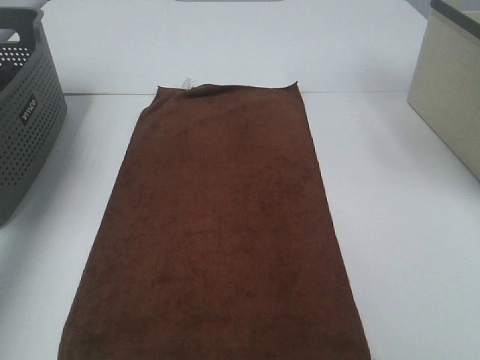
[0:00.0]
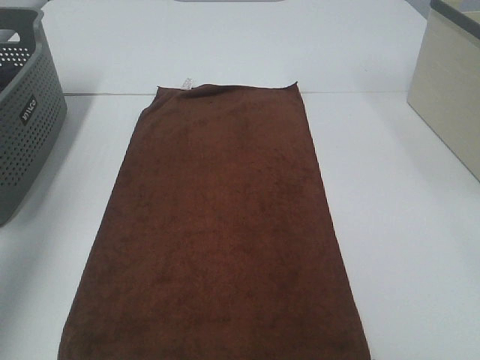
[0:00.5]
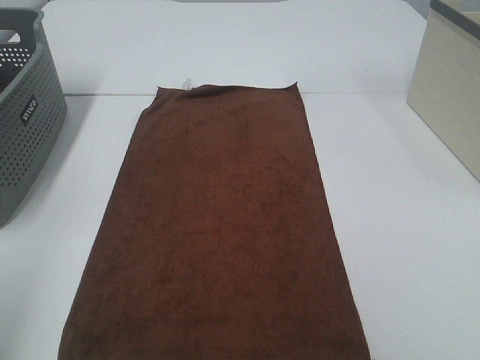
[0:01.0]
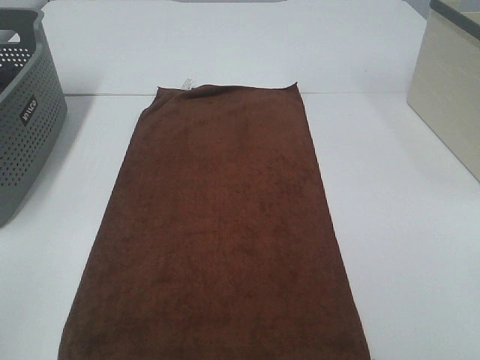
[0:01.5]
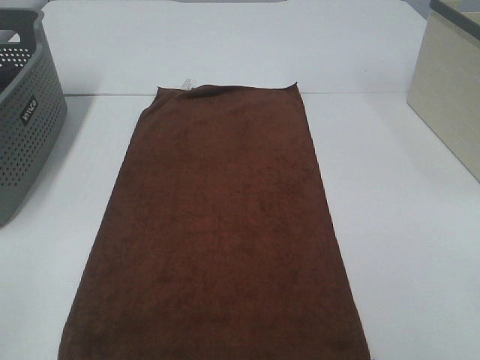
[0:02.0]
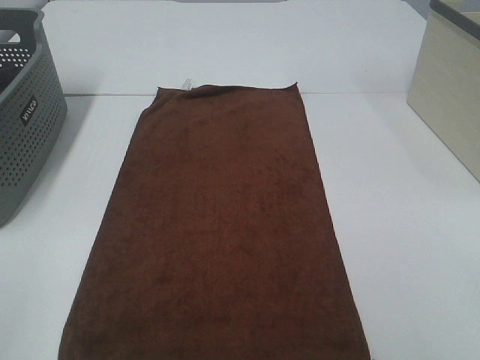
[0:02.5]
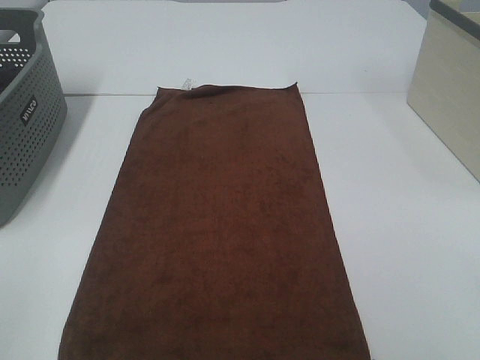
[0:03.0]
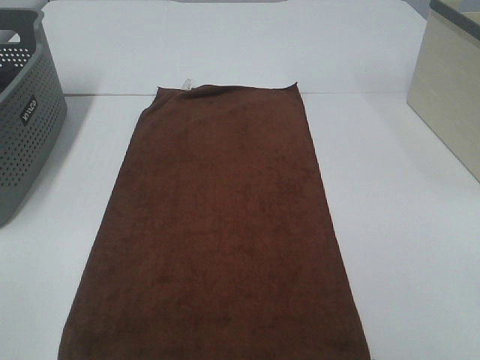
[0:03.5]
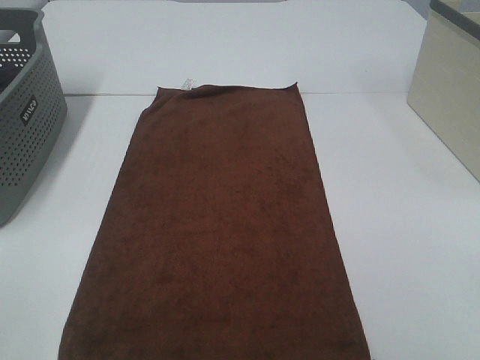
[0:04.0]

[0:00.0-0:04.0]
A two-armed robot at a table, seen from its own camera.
Task of the whole recording: Remove the towel and place it.
0:00.0 to 0:02.0: Both grippers travel together backward, roughly 40 cm.

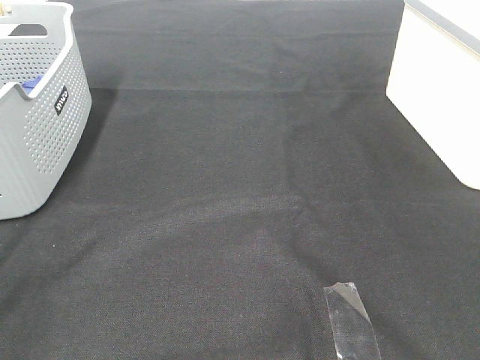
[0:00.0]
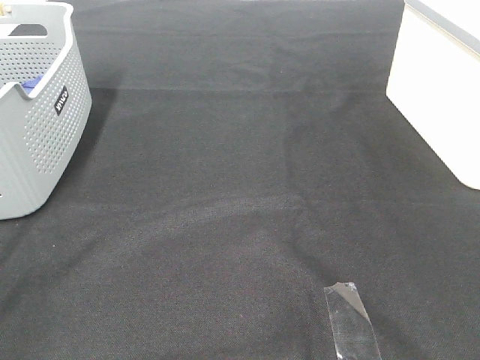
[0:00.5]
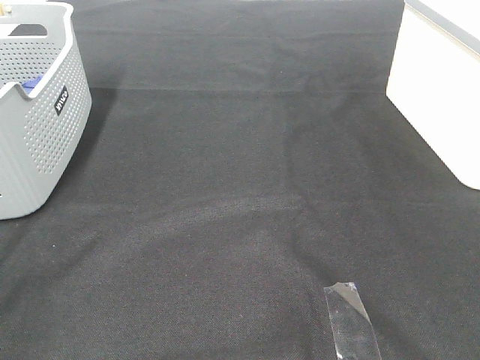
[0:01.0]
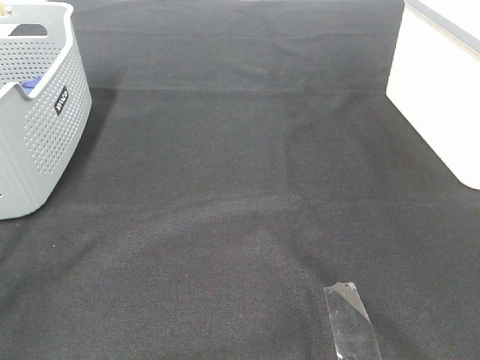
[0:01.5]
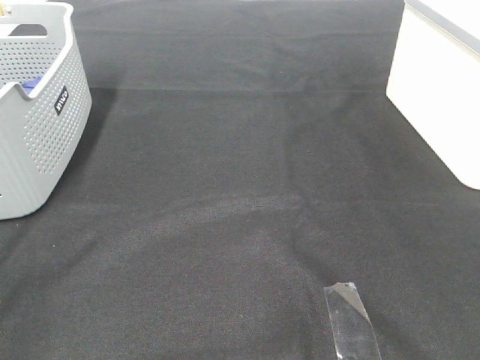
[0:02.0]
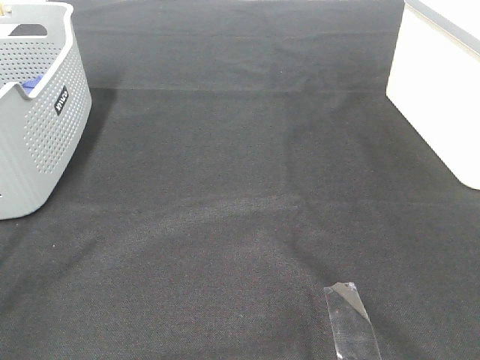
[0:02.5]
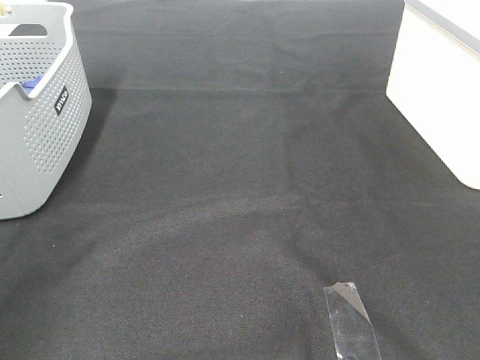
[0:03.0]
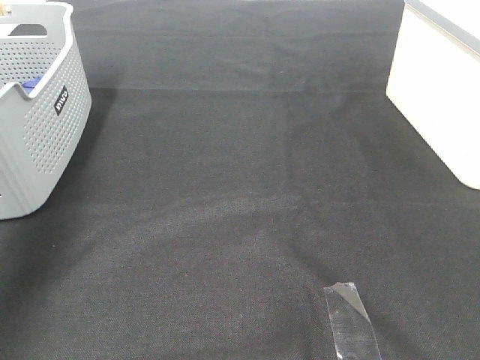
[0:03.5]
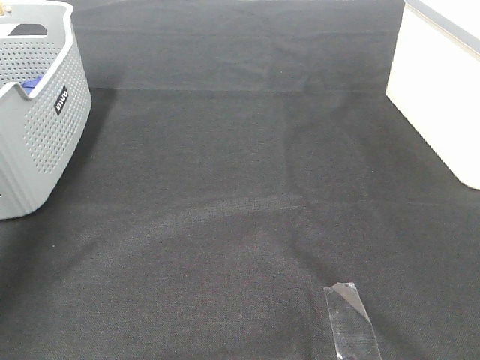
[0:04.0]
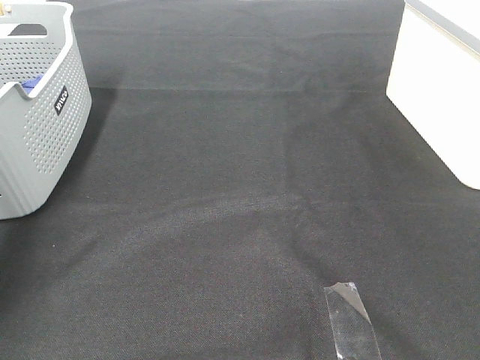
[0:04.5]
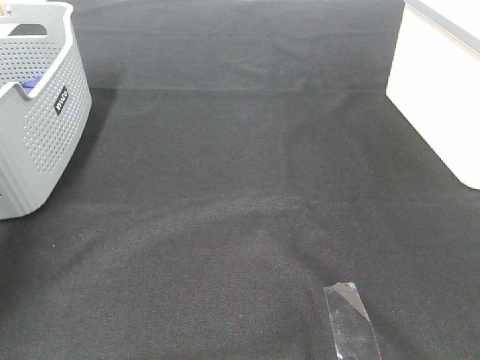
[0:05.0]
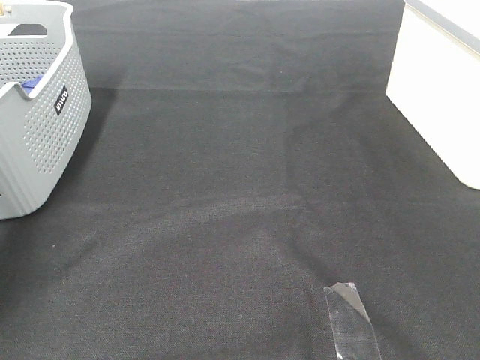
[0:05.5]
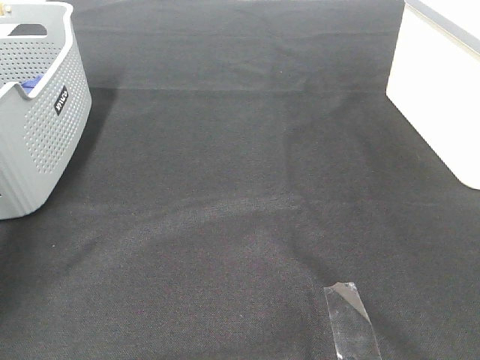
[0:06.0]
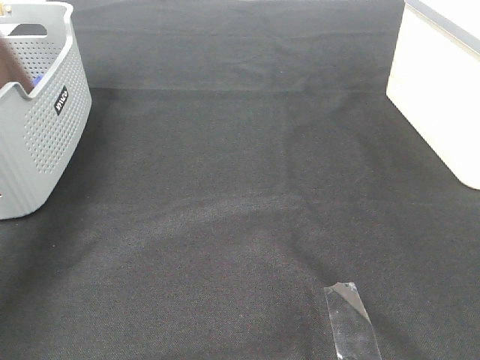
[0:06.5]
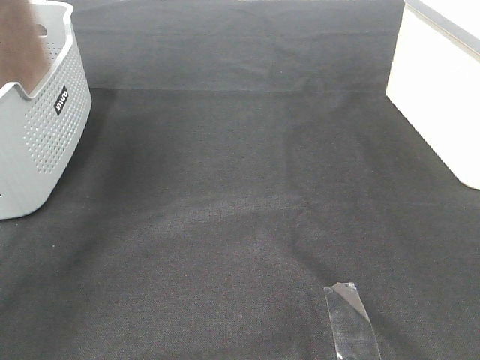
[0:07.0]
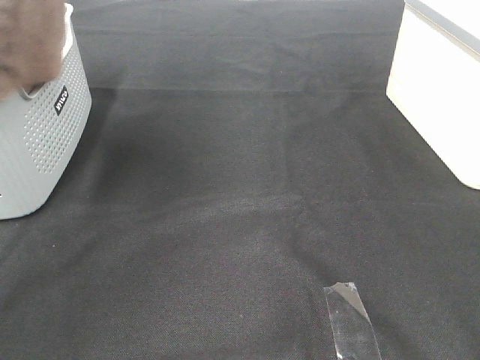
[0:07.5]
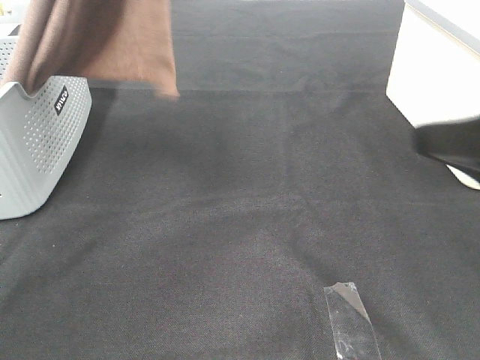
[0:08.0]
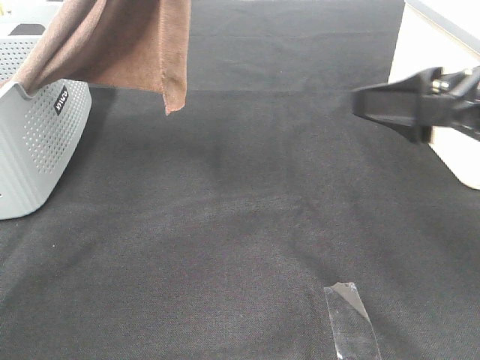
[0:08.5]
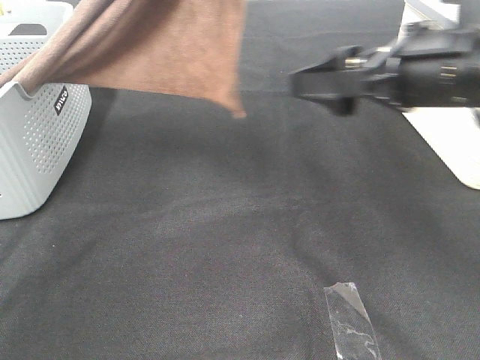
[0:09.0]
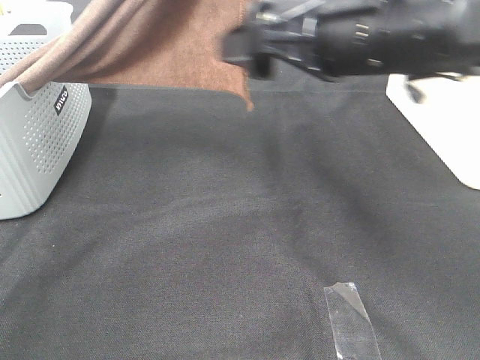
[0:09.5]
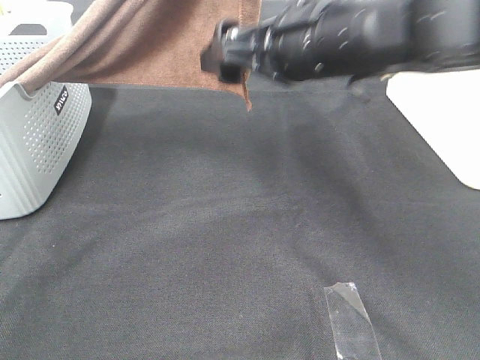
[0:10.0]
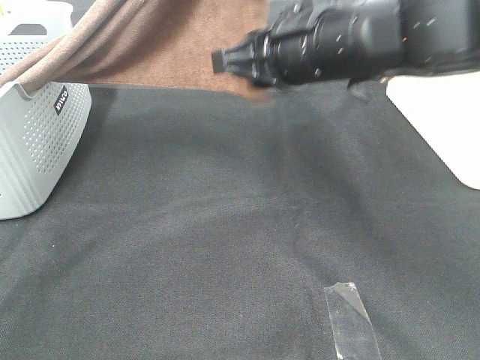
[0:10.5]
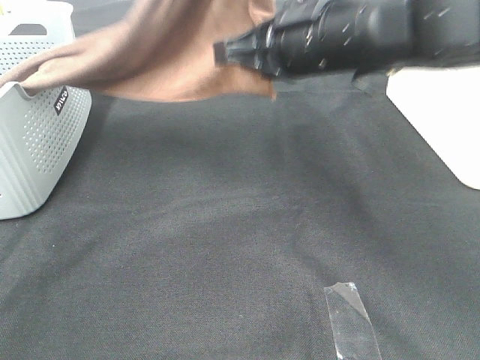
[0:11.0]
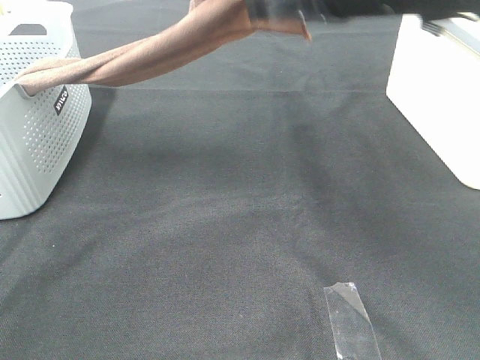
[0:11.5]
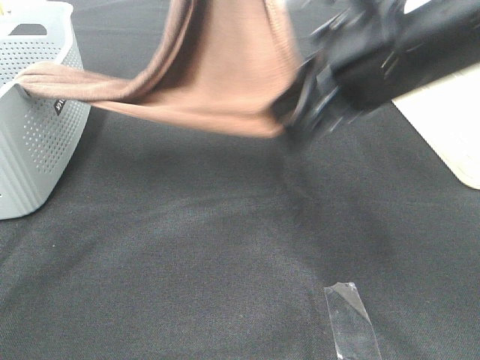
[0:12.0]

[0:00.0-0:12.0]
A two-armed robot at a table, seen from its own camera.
Task of the whole recording: Remove the towel and place it.
0:00.0 to 0:02.0: Both grippers stay put.
0:02.0 to 0:04.0: The left gripper heads forward, covering about 40 cm.
0:06.0 to 0:08.0: The right gripper travels forward by roughly 15 cm, while the left gripper moves upward, to the right and backward, roughly 40 cm.
0:08.0 to 0:10.0: The left gripper travels to the right by approximately 10 cm; the right gripper travels to the left and forward by roughly 20 cm.
0:10.0 to 0:12.0: The right gripper is displaced backward and upward by roughly 10 cm, and closes up.

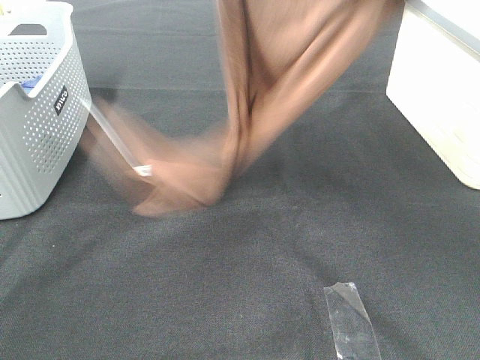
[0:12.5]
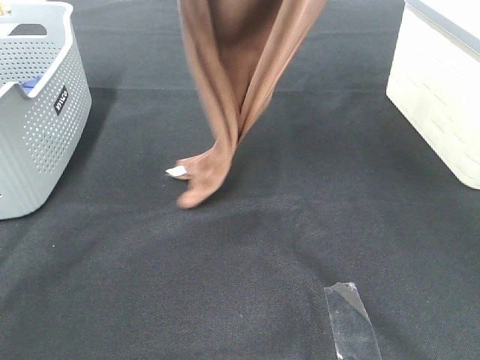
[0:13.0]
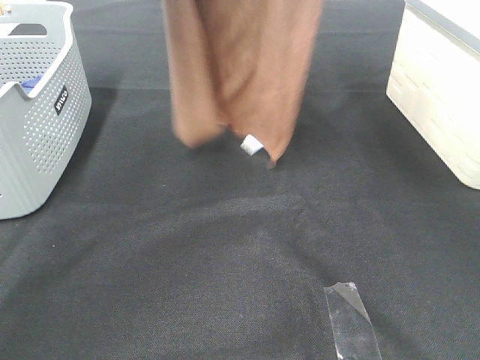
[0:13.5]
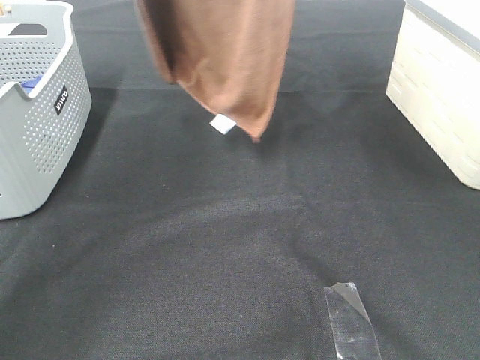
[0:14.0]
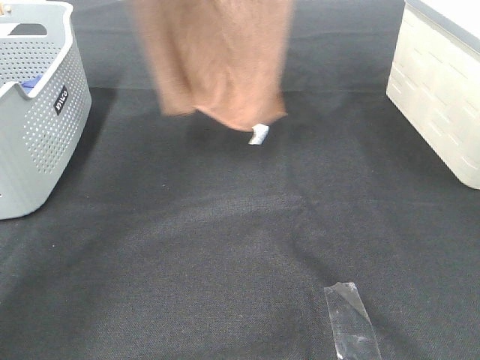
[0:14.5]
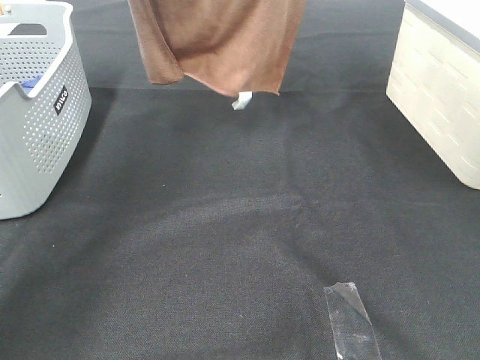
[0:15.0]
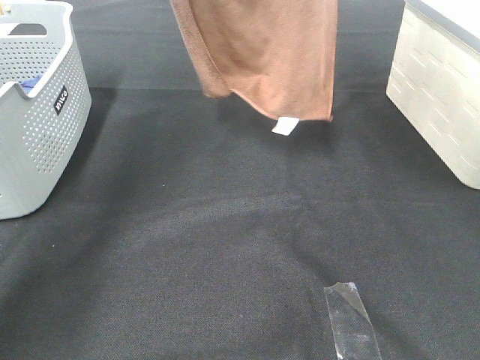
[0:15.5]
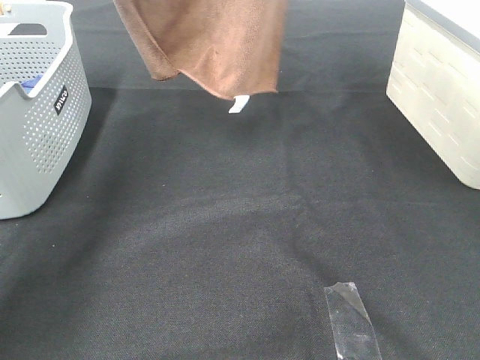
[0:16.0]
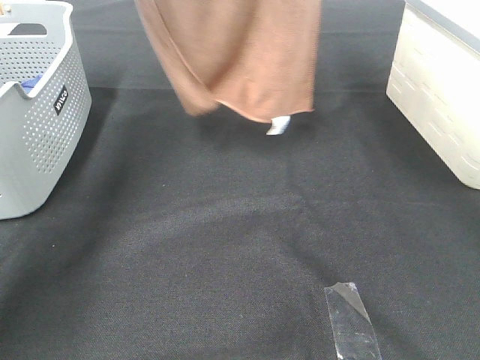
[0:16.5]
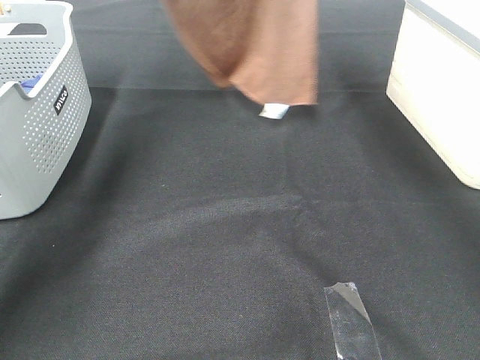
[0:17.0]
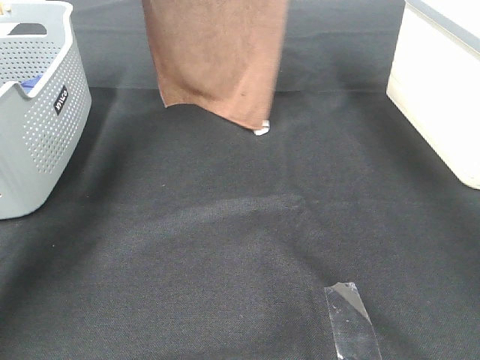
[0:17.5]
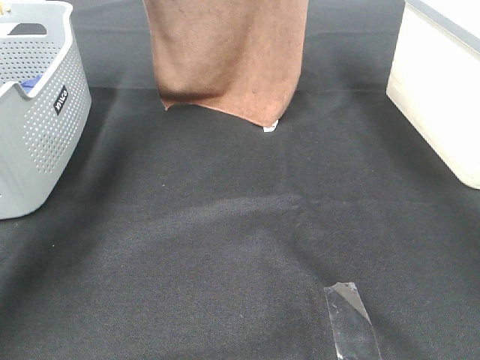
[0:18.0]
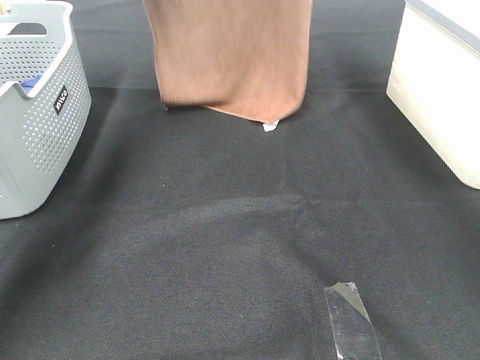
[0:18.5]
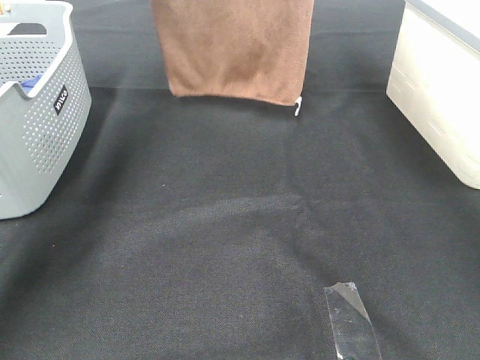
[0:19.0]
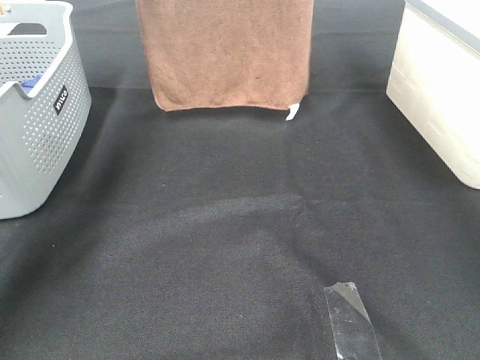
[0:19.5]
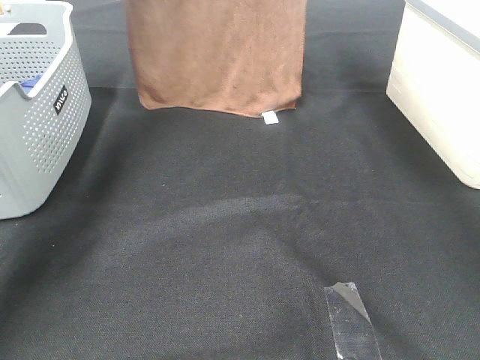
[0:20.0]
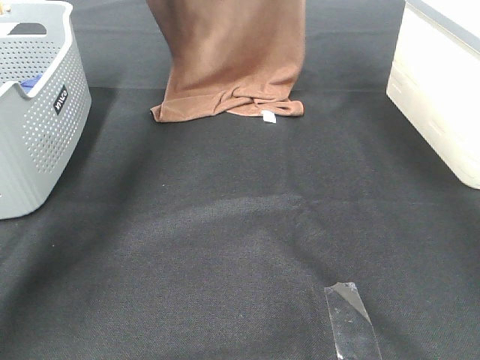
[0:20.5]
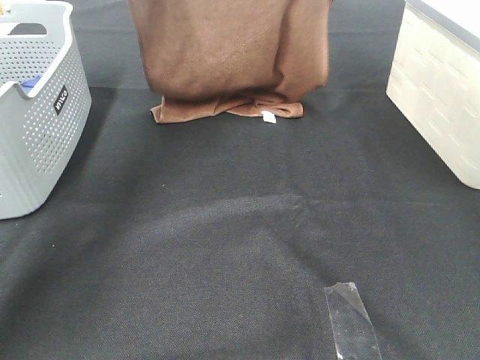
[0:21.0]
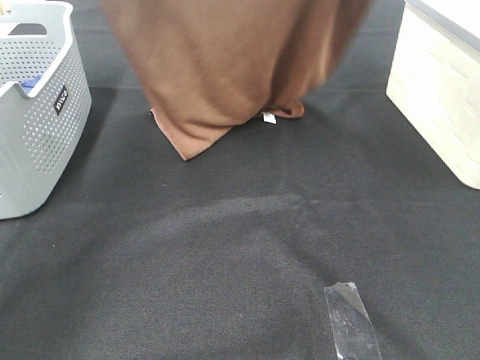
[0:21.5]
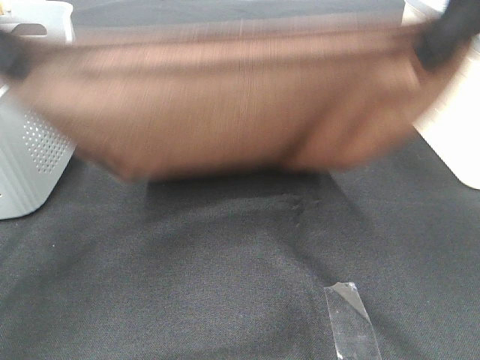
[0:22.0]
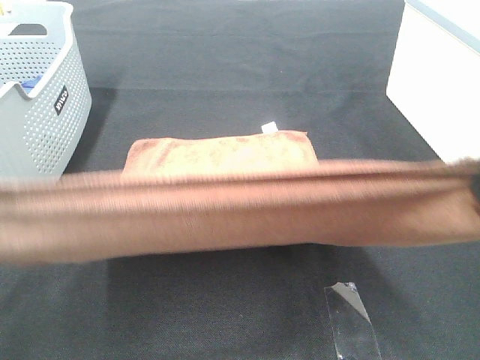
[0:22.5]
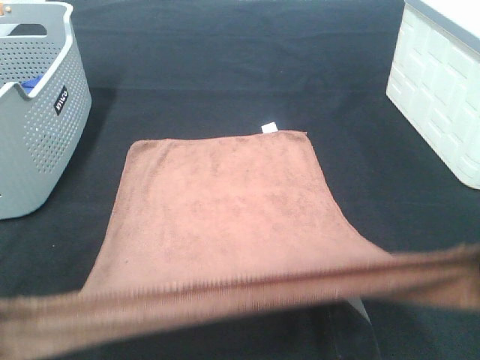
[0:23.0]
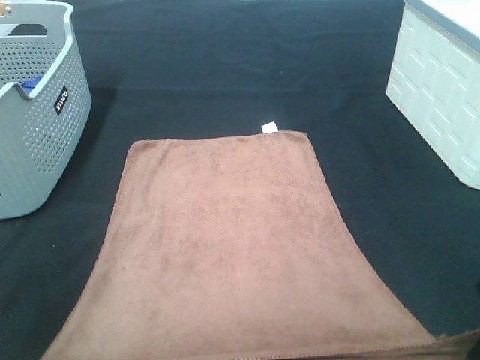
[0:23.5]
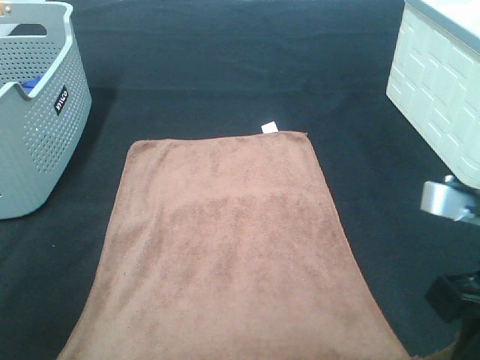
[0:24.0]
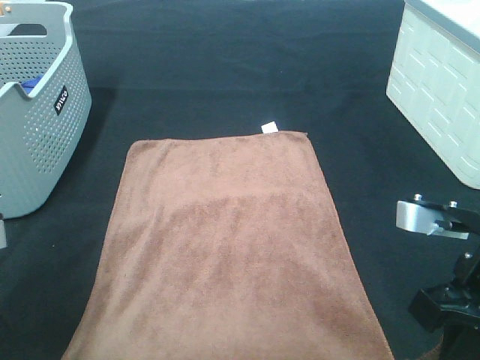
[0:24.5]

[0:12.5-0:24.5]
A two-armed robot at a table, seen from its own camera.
Task of the whole recording: Remove the towel and place it.
Step, 0:12.5 to 0:15.5: Right hand: grab a corner of the brown towel and straighten it.
Step, 0:16.0 to 0:20.5: Left hand: spread the brown towel flat on the table.
Step, 0:16.0 to 0:20.5: Right hand: spread the brown towel flat on the table.
0:12.5 to 0:14.5: The left gripper moves to the left, forward and upward, some 15 cm, while the right gripper heads forward and upward, covering some 15 cm.
0:14.5 to 0:16.5: The left gripper shifts some 10 cm downward and forward, while the right gripper changes place by approximately 5 cm.
0:16.5 to 0:18.5: The left gripper travels downward and forward by about 10 cm. The right gripper travels forward and downward by about 10 cm.
0:18.5 to 0:20.5: The left gripper travels downward by roughly 5 cm.
0:20.5 to 0:22.5: Both grippers travel together backward, about 40 cm.
0:22.5 to 0:24.5: Both grippers travel together downward, roughly 15 cm.
